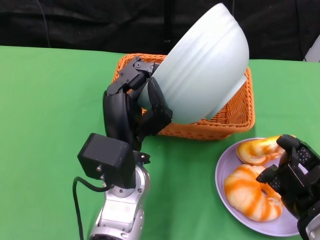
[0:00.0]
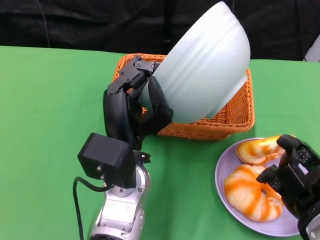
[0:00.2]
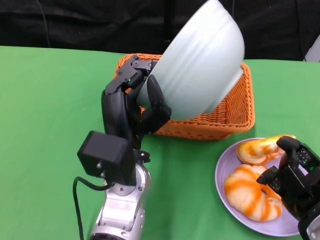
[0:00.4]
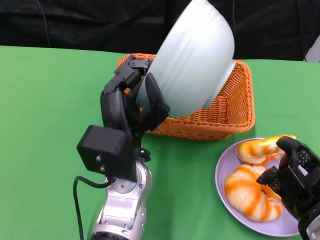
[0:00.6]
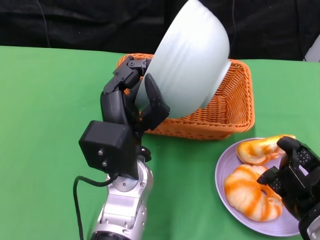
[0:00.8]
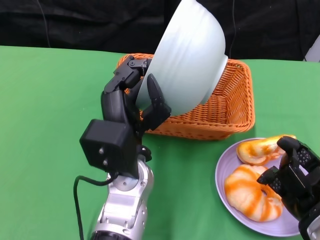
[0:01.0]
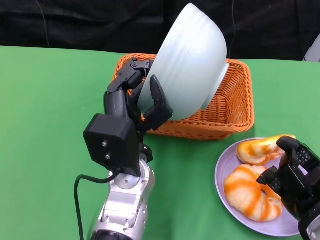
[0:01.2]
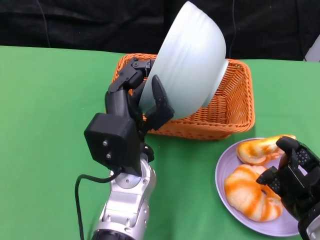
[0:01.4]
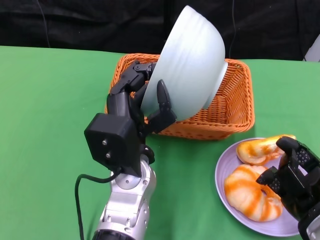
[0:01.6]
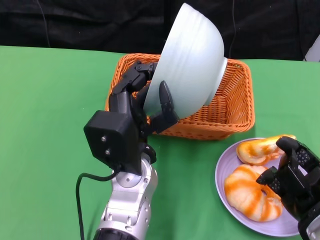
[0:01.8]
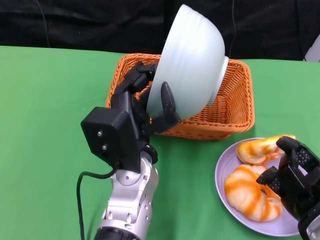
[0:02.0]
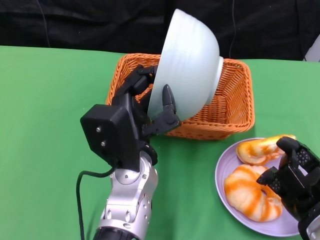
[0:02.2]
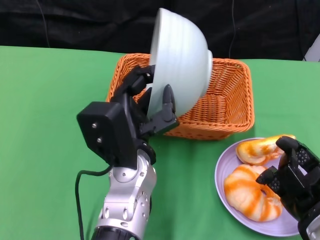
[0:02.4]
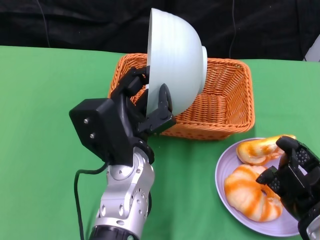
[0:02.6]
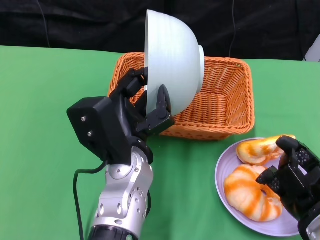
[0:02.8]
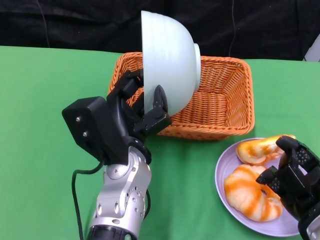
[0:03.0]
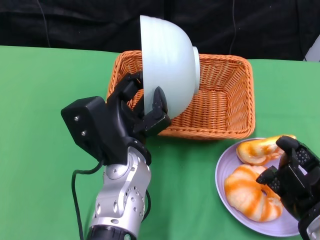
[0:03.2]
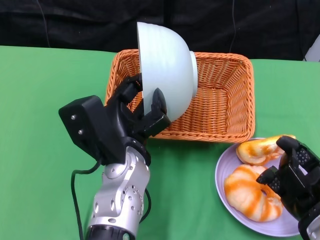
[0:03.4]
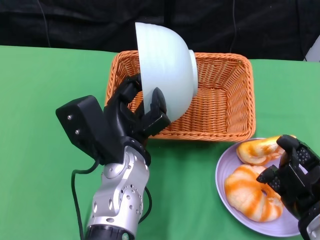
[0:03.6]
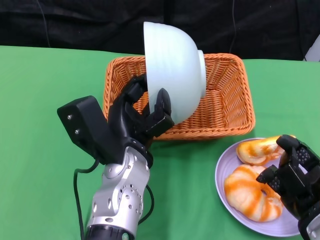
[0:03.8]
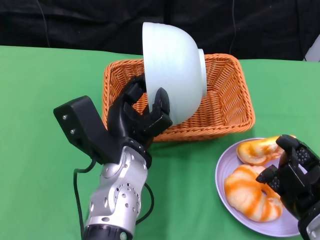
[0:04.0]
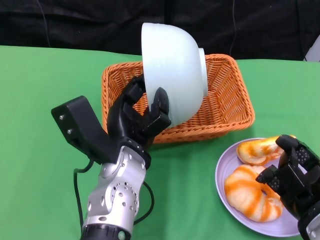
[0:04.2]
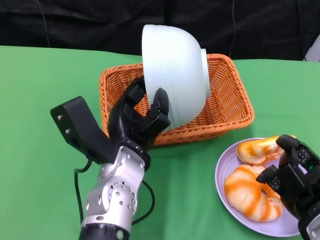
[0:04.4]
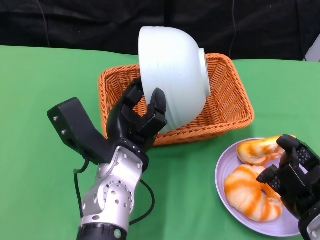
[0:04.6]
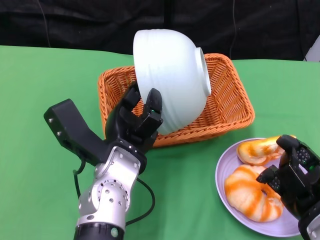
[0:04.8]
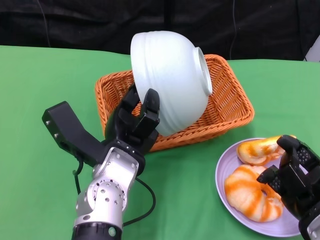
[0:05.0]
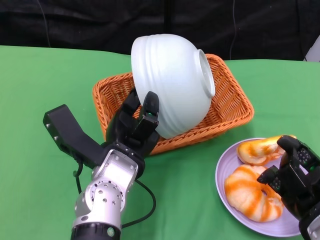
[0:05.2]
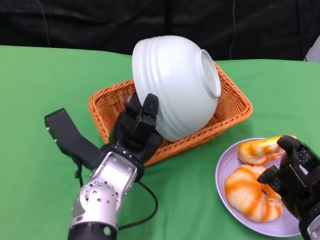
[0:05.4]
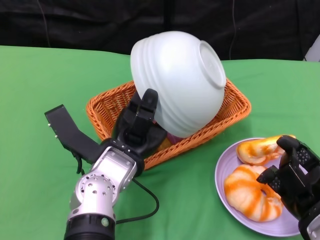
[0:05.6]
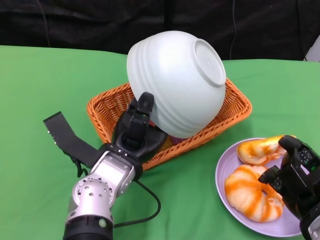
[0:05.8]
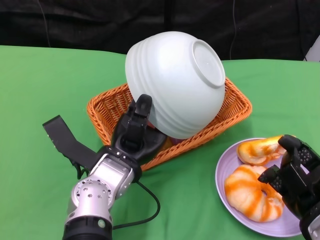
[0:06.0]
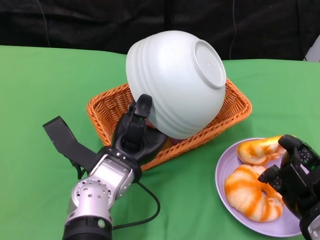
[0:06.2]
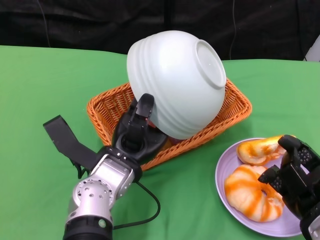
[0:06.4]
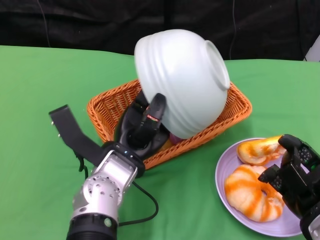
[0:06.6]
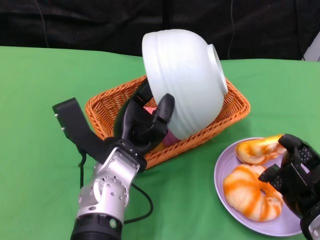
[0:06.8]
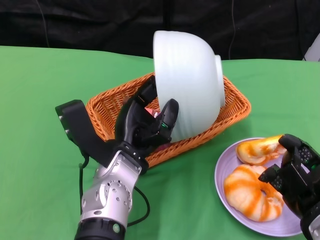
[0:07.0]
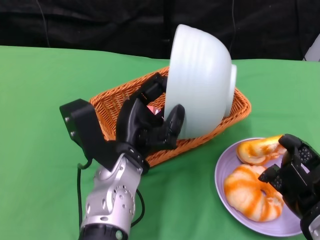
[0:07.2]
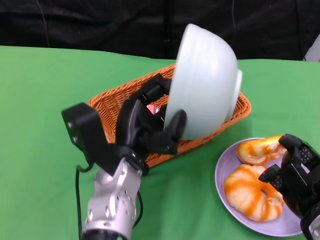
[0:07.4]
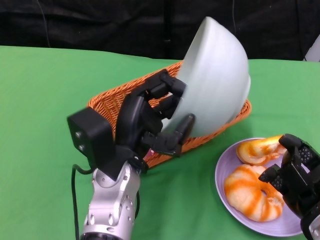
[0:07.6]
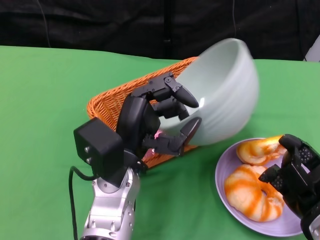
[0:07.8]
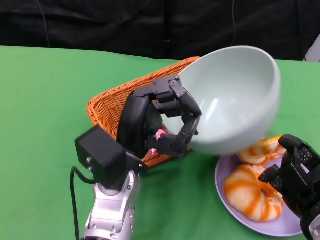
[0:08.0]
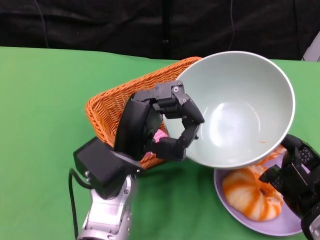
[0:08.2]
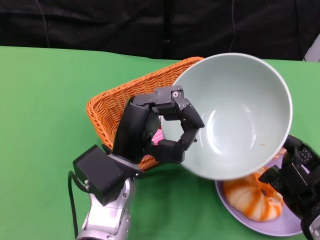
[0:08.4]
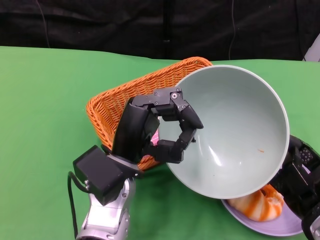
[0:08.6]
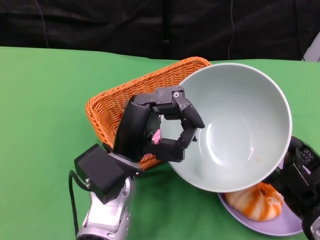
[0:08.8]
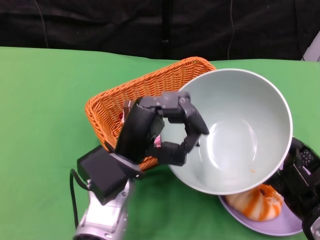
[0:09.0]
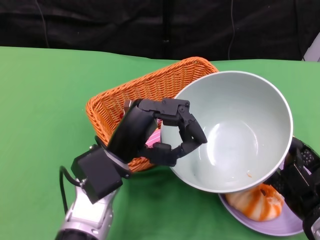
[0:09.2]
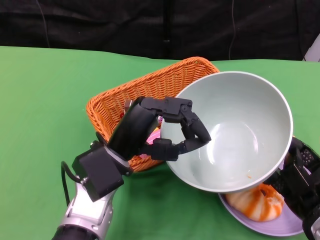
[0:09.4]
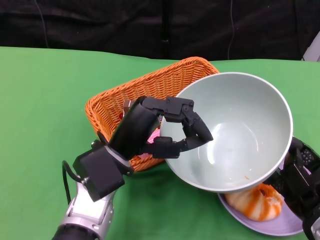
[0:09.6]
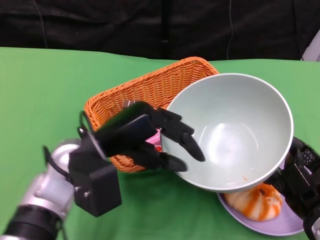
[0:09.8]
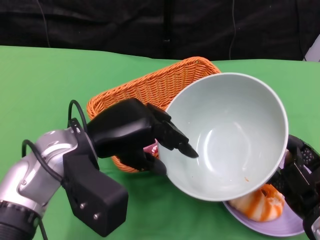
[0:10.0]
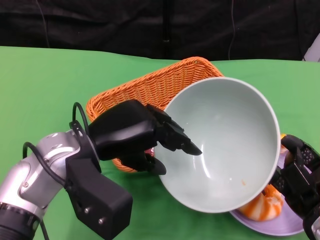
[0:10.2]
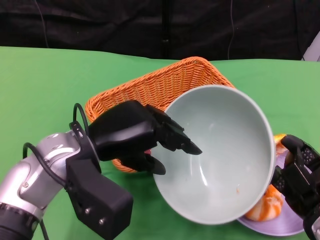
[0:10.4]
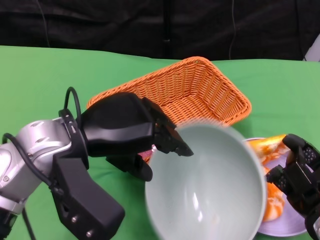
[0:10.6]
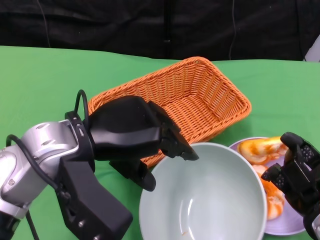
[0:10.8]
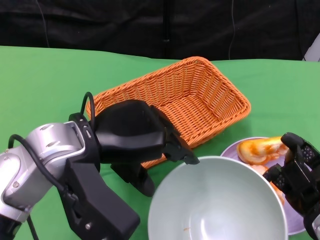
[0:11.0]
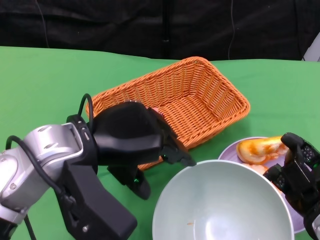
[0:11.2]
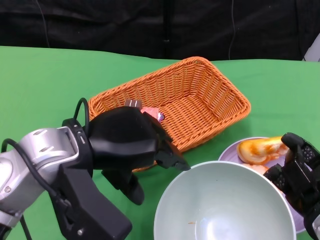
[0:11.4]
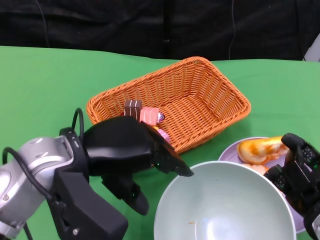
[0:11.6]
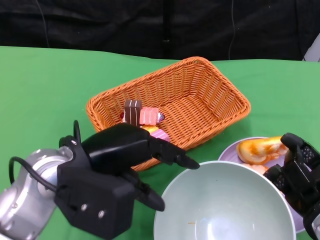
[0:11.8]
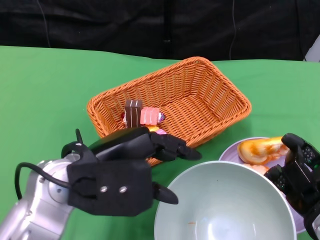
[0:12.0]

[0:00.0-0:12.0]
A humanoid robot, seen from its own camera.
Step, 0:00.0 to 0:07.4: Pour the cake into the basket with the left gripper.
0:00.0 to 0:01.6: The hands make only small movements.
0:09.0 to 0:10.4: The left hand moves to the left, some 5 cm.

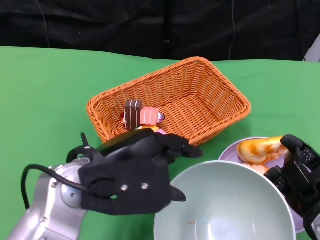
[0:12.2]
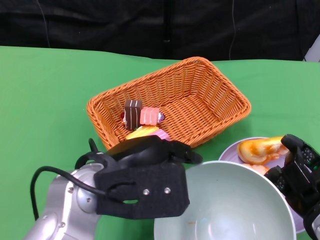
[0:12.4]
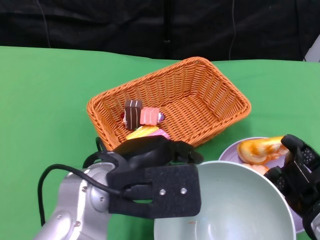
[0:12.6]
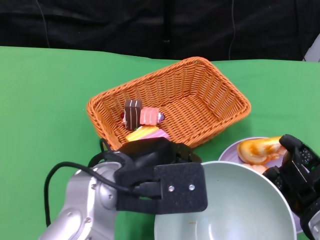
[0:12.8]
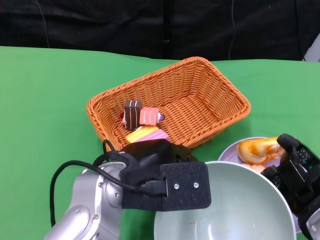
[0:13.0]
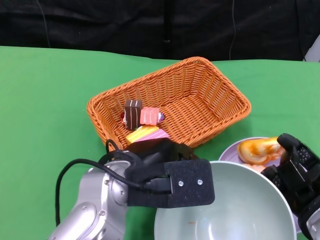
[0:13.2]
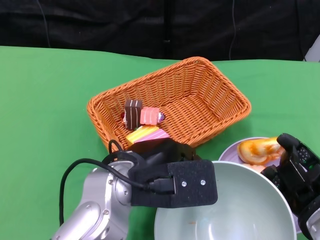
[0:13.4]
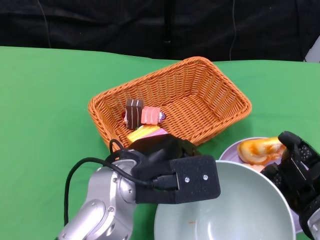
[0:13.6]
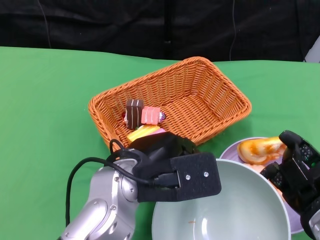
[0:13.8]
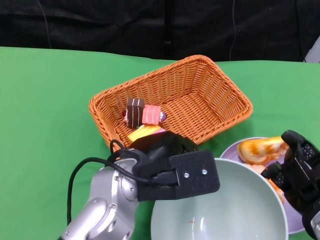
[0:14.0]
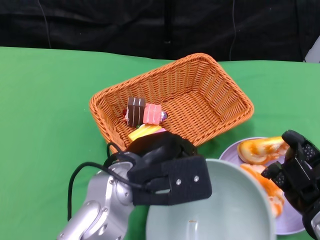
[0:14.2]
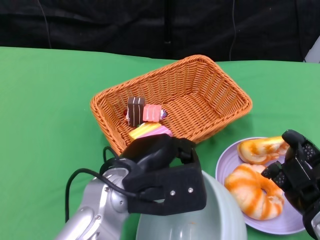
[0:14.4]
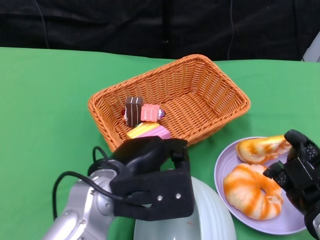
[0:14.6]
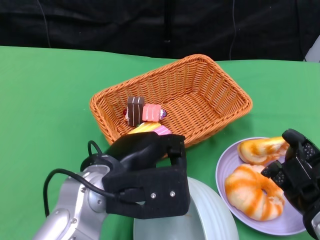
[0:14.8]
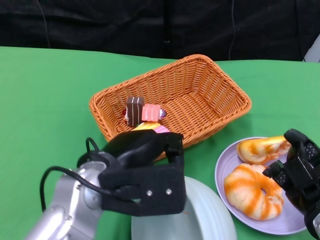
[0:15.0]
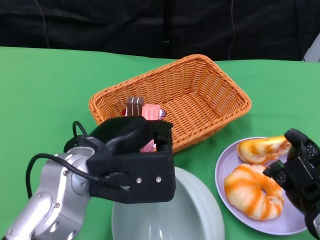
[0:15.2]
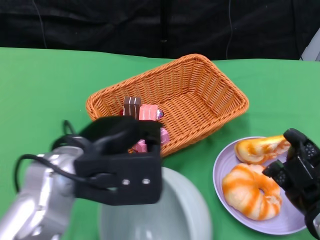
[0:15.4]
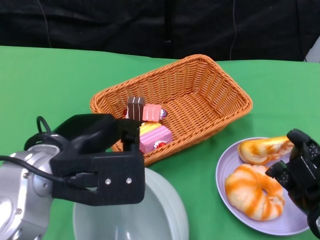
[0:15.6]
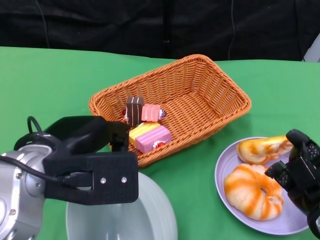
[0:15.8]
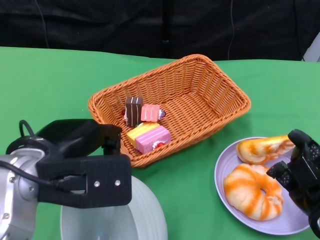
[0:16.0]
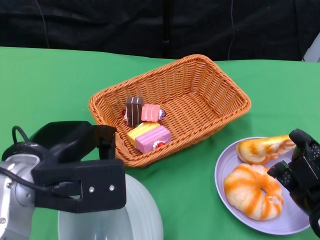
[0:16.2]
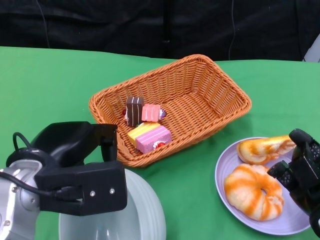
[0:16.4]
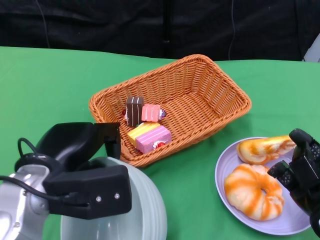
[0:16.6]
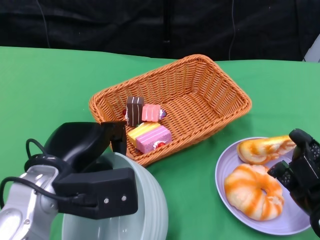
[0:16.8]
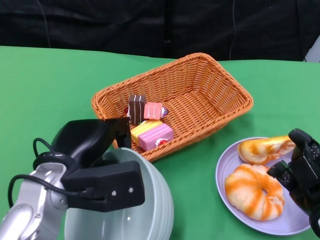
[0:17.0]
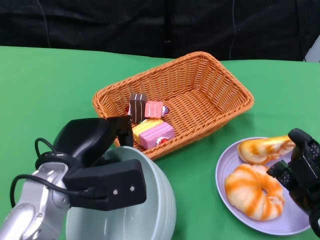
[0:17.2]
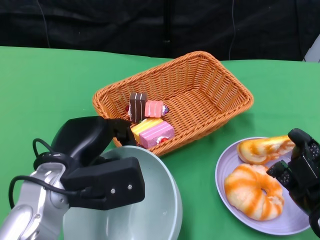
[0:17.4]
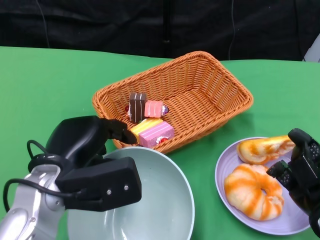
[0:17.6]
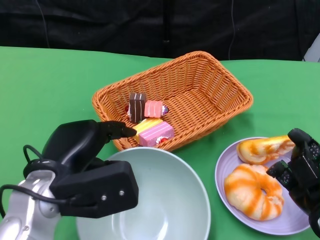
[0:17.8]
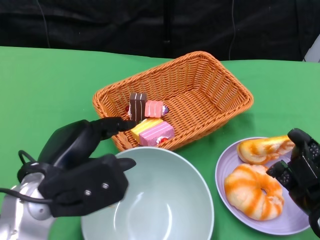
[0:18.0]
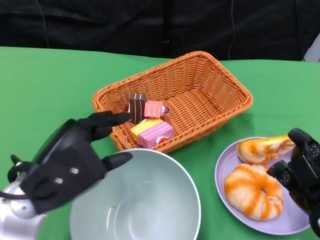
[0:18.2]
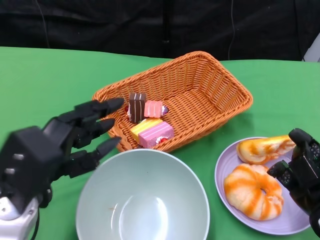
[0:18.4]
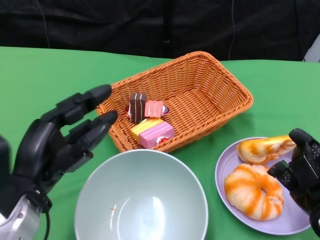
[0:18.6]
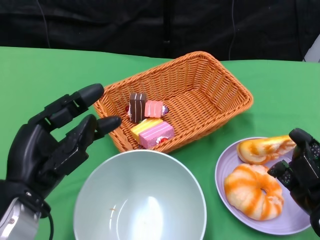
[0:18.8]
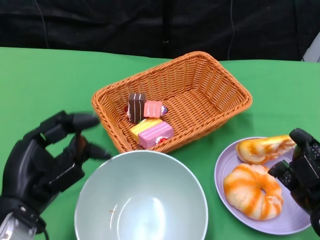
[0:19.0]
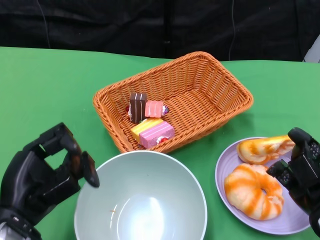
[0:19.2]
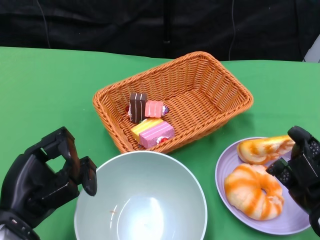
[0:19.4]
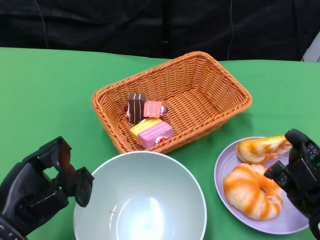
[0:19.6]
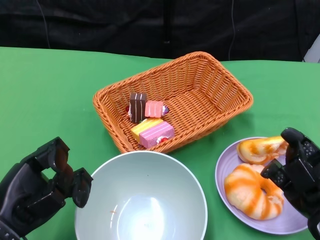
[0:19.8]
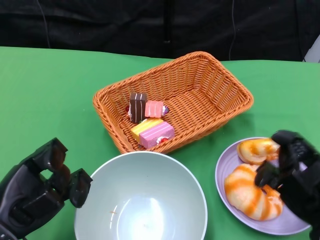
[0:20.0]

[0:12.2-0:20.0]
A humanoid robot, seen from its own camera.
Step, 0:12.2 to 0:18.4: Place the bowl on the table with the left gripper.
0:12.2 to 0:13.8: The left hand moves to the right, approximately 5 cm.
0:13.8 to 0:15.4: The left hand heads to the left, covering roughly 5 cm.
0:15.4 to 0:16.8: The left hand changes place by some 5 cm.
0:18.4 to 0:20.0: The left hand ends up approximately 10 cm from where it was.

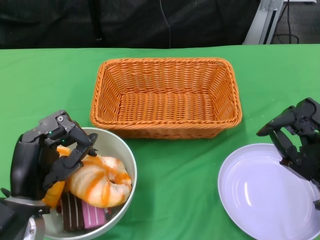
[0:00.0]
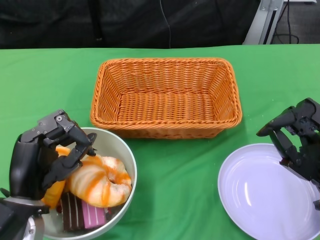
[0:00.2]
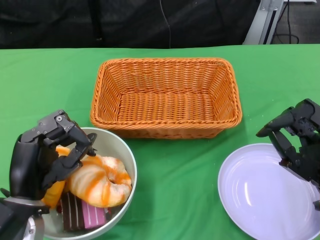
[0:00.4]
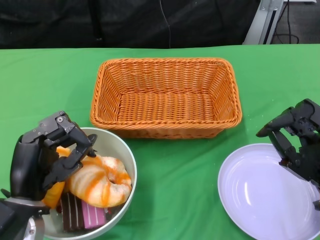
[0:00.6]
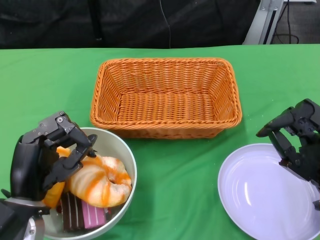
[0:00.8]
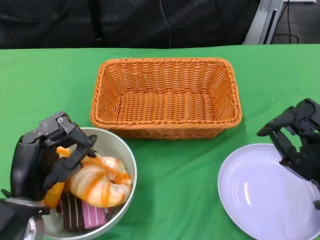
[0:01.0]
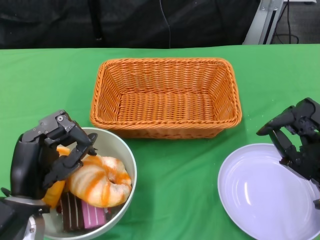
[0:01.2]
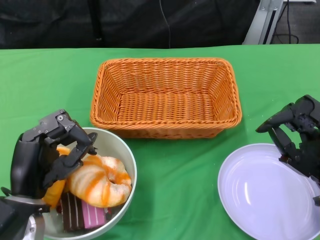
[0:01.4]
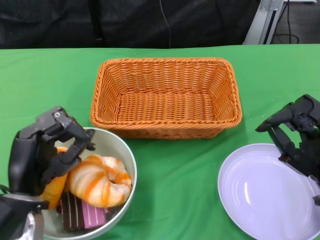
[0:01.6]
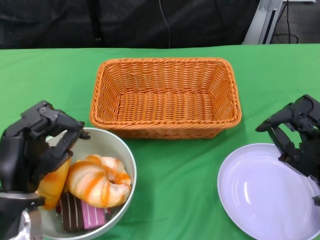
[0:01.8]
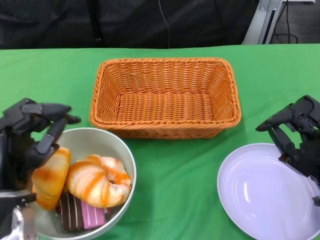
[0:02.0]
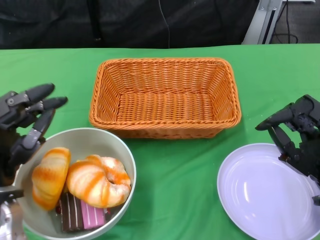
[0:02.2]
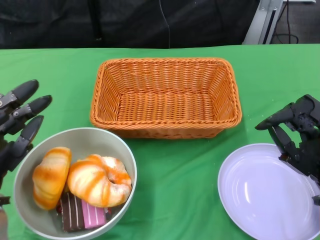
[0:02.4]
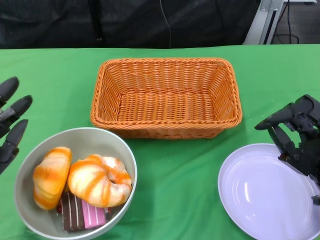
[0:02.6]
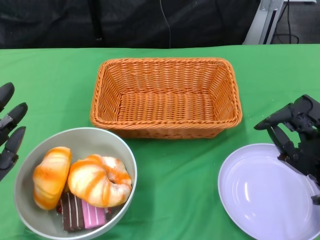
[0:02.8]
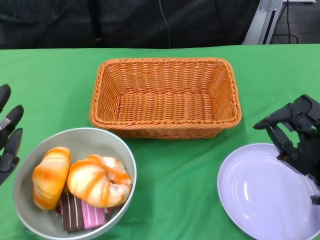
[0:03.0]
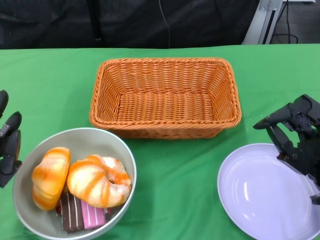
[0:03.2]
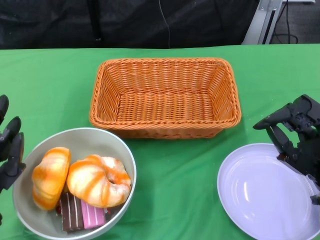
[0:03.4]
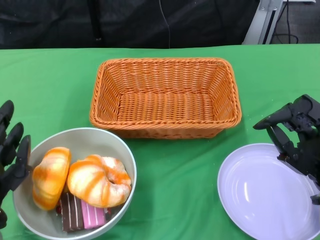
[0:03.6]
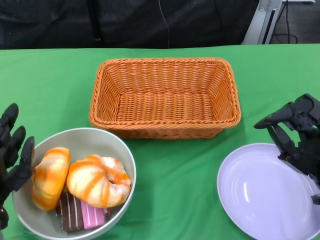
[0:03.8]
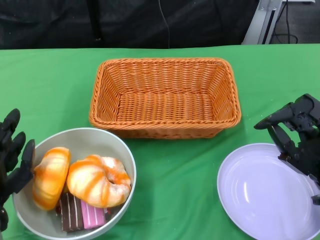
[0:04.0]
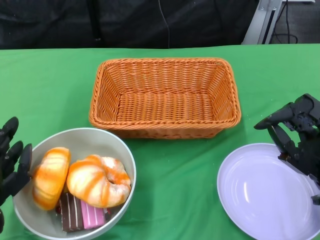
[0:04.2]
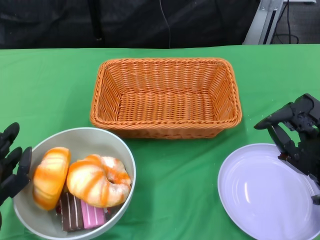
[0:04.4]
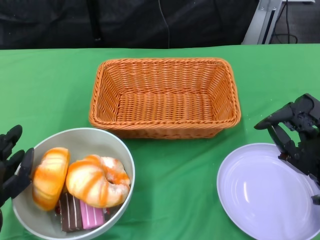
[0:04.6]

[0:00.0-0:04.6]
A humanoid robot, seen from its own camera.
0:01.6 to 0:03.0: The left hand moves to the left, roughly 5 cm.
